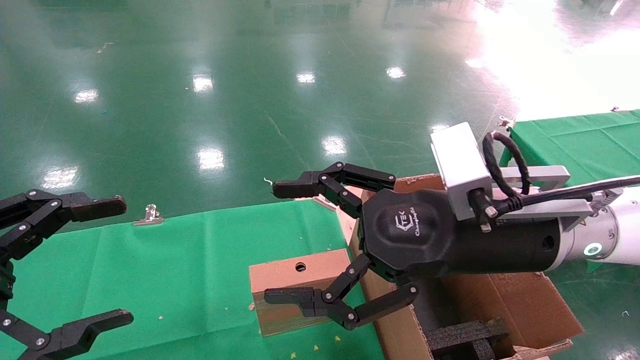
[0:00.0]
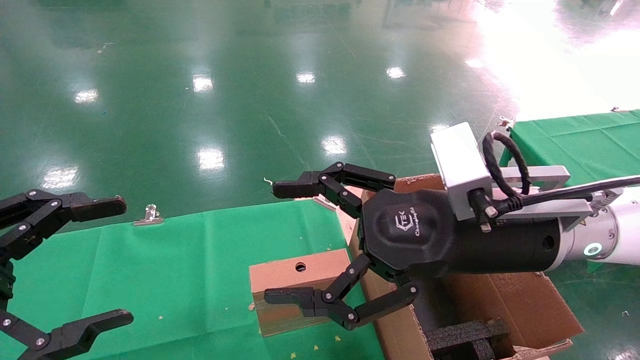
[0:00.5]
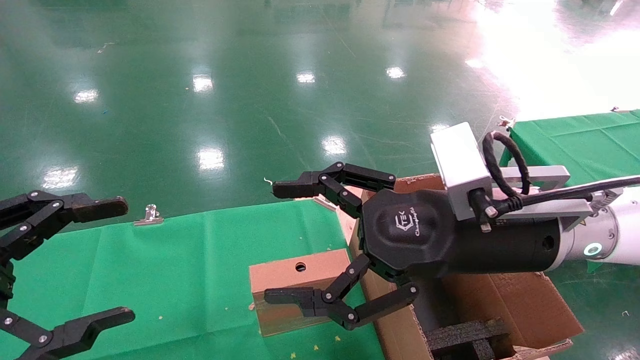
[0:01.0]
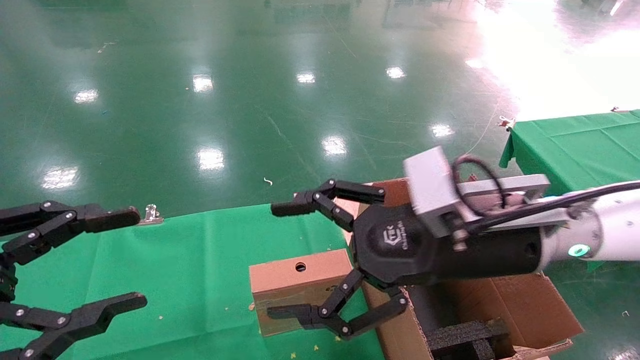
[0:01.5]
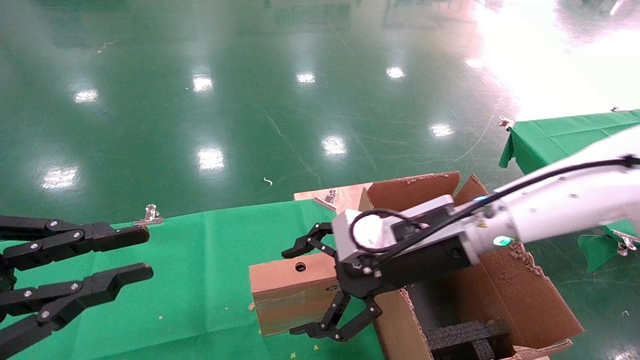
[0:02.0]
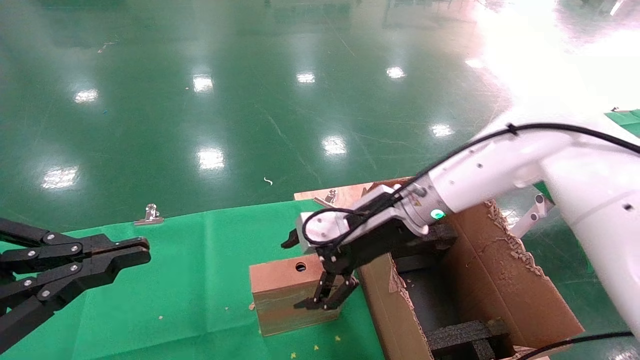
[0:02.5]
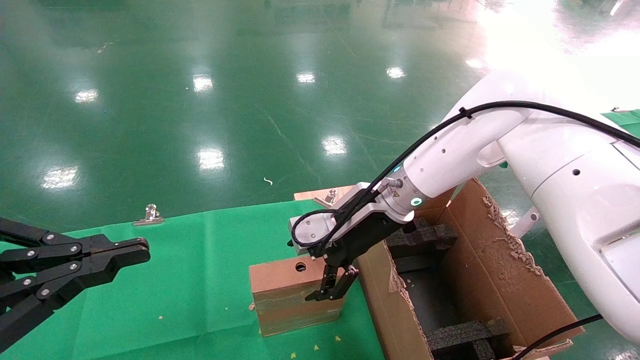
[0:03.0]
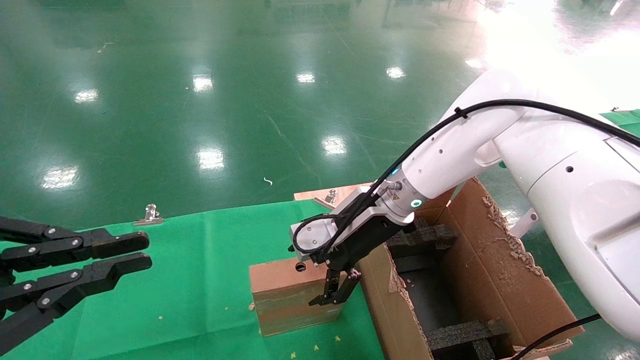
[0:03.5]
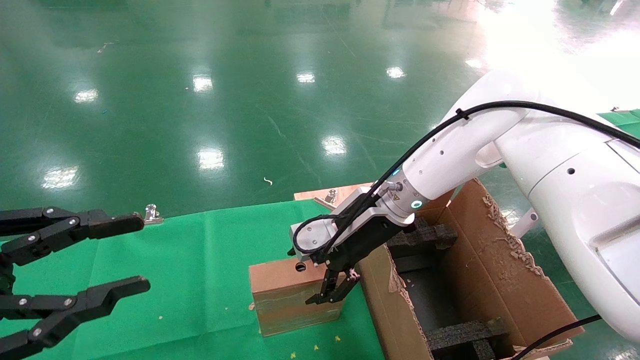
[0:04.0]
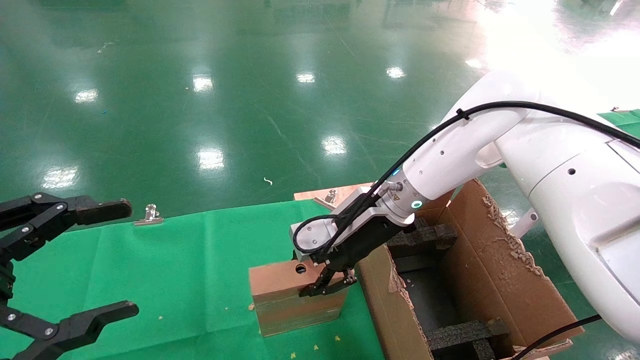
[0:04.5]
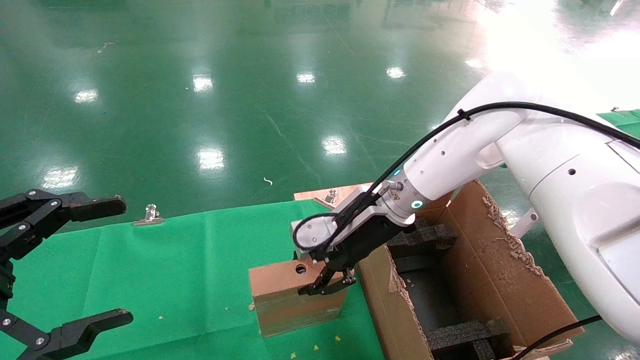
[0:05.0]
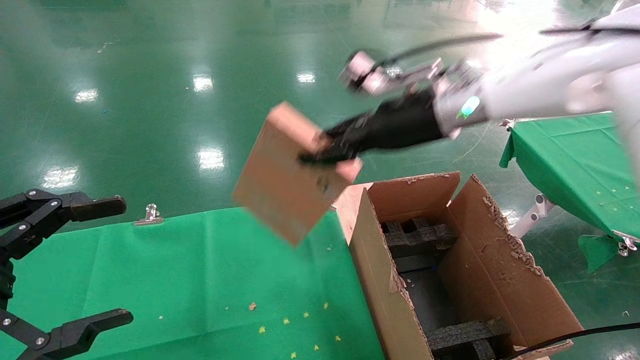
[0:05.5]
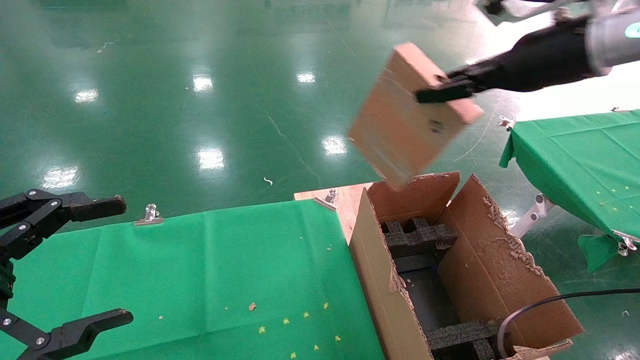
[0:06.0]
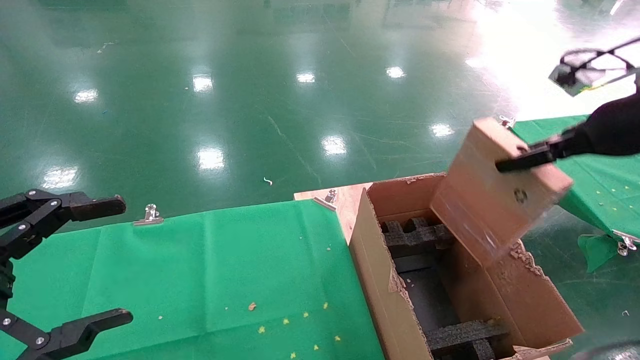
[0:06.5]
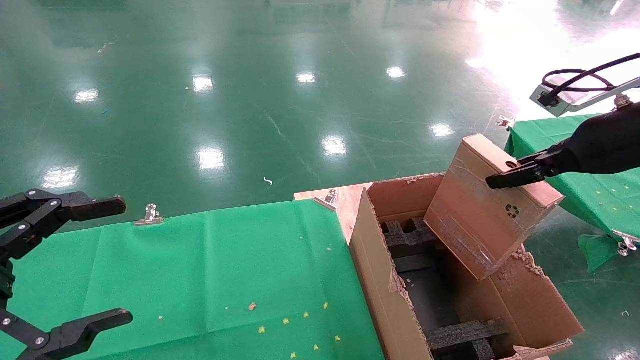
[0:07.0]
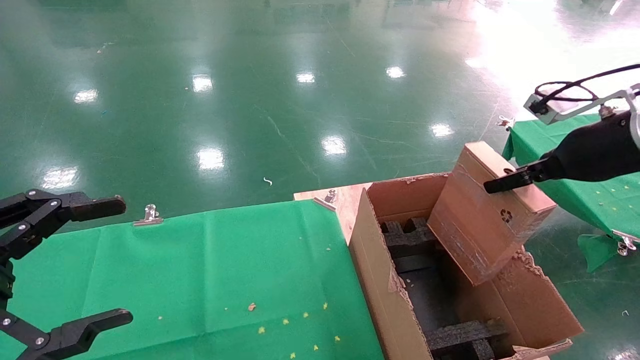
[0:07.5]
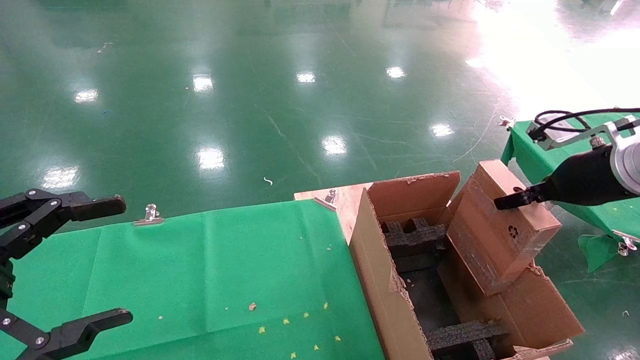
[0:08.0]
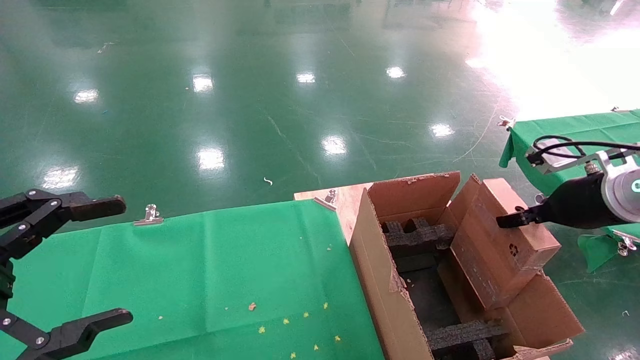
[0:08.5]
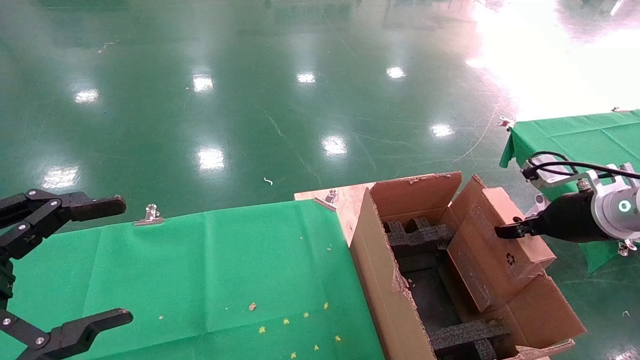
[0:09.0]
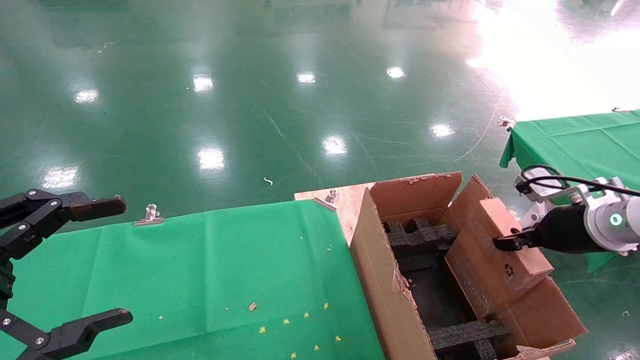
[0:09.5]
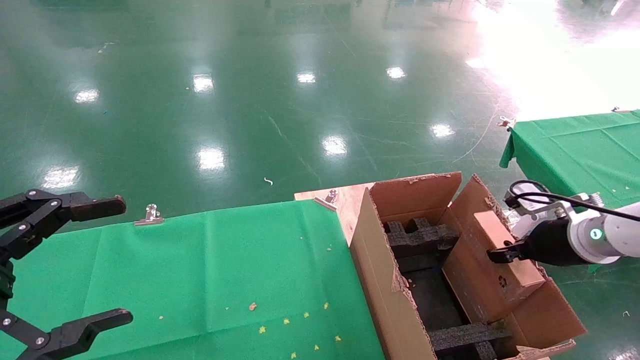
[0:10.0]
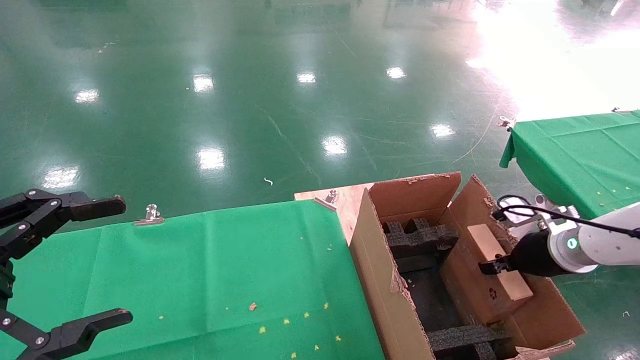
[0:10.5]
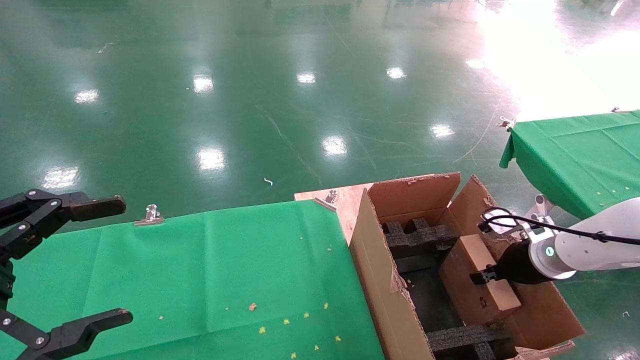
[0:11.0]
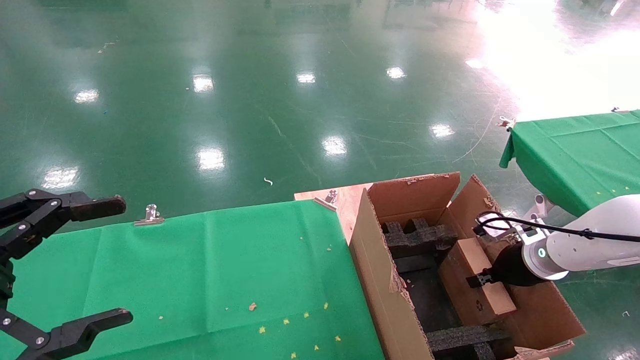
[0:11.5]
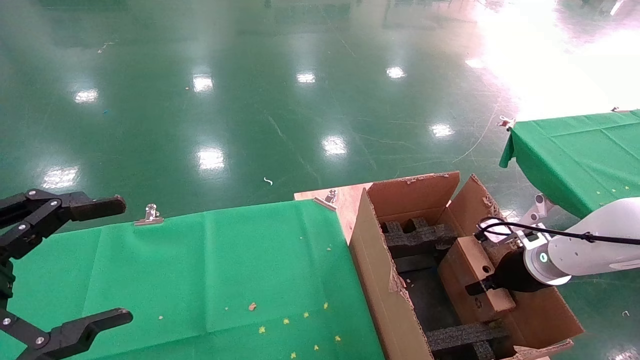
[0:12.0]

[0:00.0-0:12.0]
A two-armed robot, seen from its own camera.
Task of the whole recording: using a robotic arm to pick up a cardboard box and palace it the carton.
Step, 0:01.5 to 0:04.5: Pick up the mouse and the power cord paper box.
0:00.0 to 0:02.0: The right gripper moves forward, some 10 cm. The left gripper closes its fingers.
0:02.0 to 0:04.0: The right gripper moves forward, roughly 10 cm.
0:04.0 to 0:06.0: The left gripper opens up. Meanwhile the right gripper shifts about 30 cm to the right and upward, and closes.
0:06.0 to 0:08.0: The right gripper travels downward and to the right by some 15 cm.
0:08.0 to 0:10.0: The right gripper shifts roughly 10 cm downward.
0:10.0 to 0:12.0: The right gripper travels downward by roughly 5 cm.

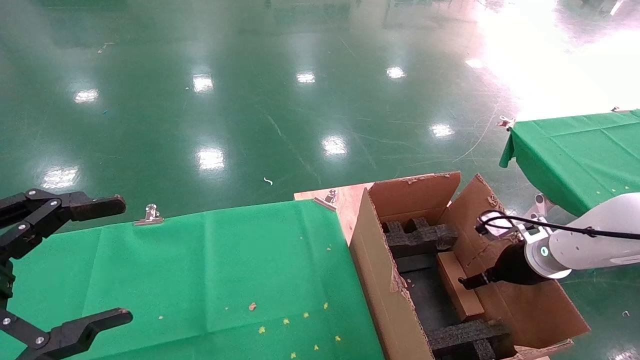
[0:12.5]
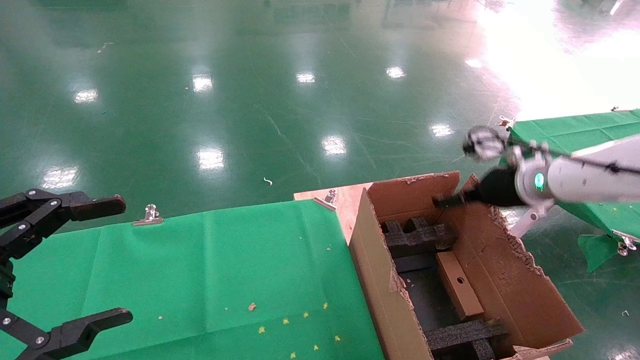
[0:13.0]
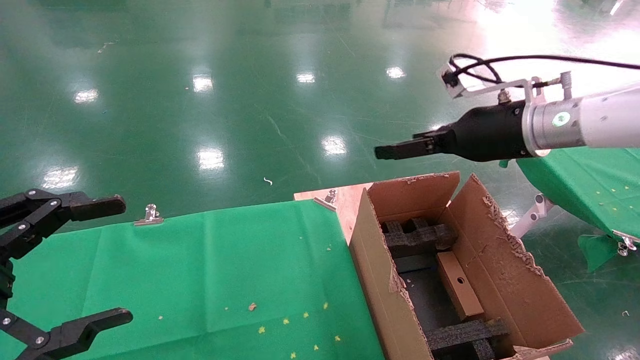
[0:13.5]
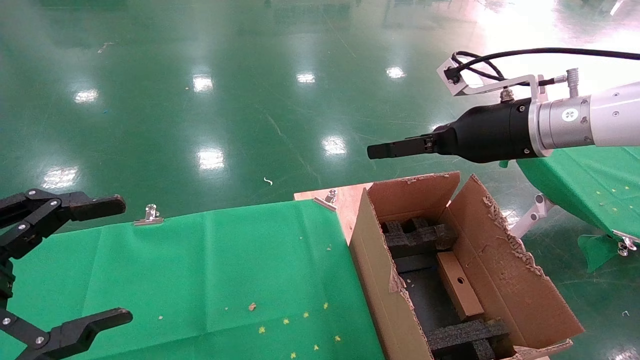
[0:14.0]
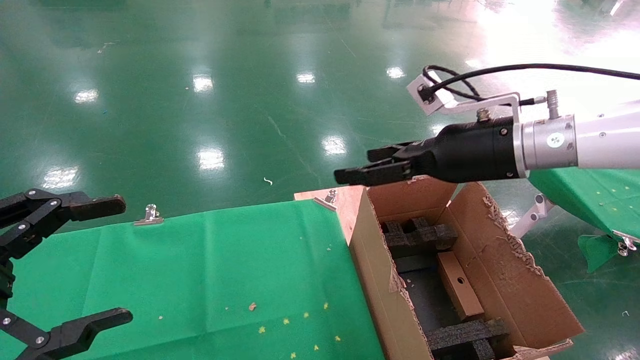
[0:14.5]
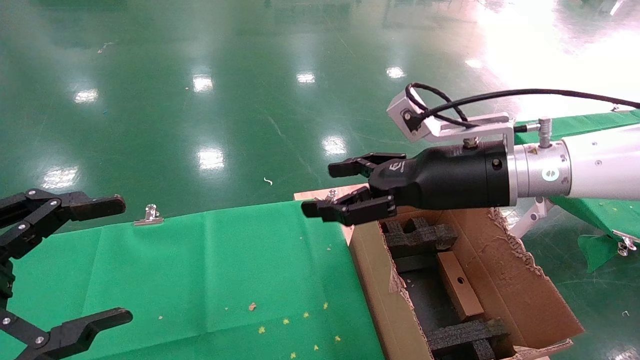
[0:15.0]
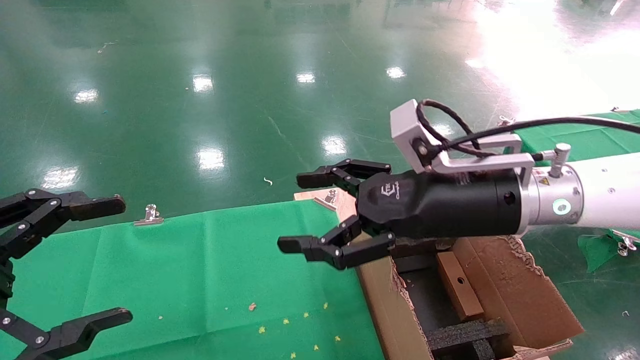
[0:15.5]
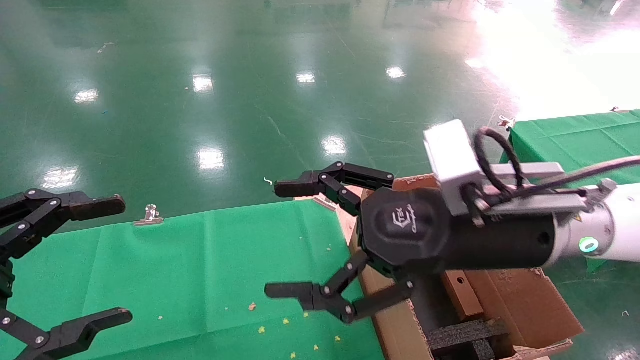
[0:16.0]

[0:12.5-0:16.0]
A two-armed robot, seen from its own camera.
Task of the whole recording: using a robotic arm to pick up a cardboard box and palace it the carton.
0:12.5 to 0:14.5: The right gripper goes about 25 cm upward and to the left.
0:14.5 to 0:16.0: The right gripper travels backward and to the left by approximately 10 cm.
